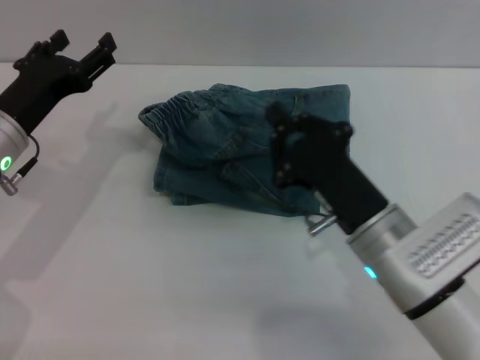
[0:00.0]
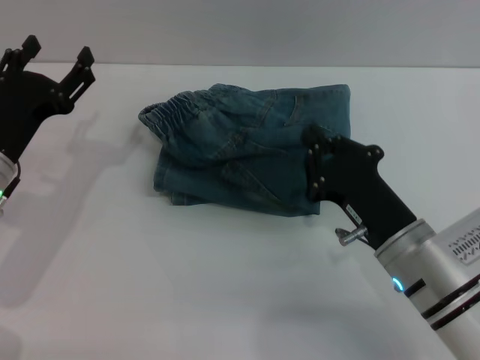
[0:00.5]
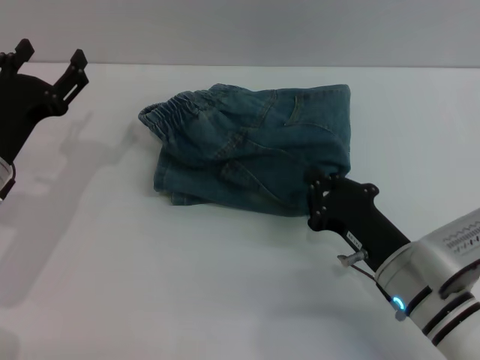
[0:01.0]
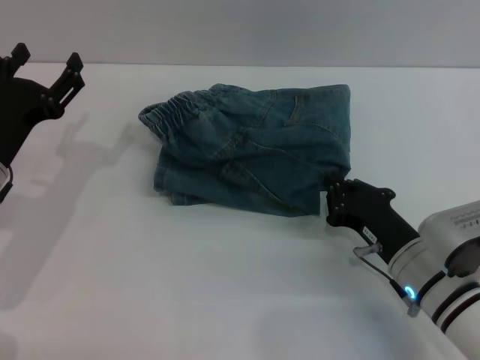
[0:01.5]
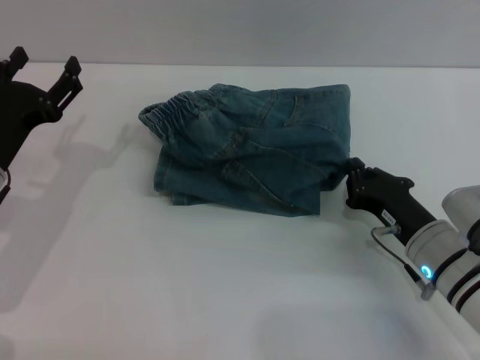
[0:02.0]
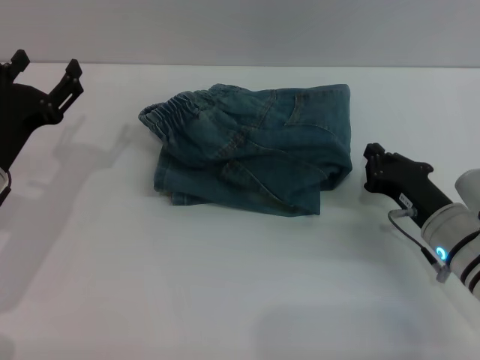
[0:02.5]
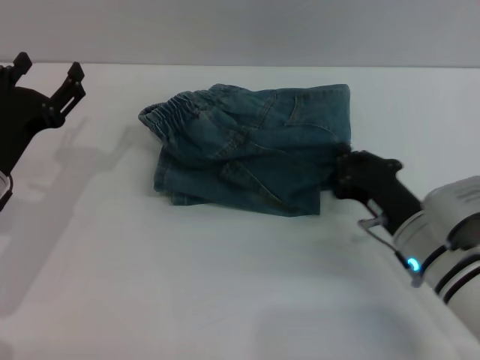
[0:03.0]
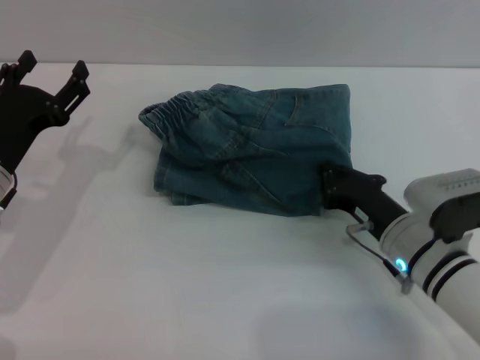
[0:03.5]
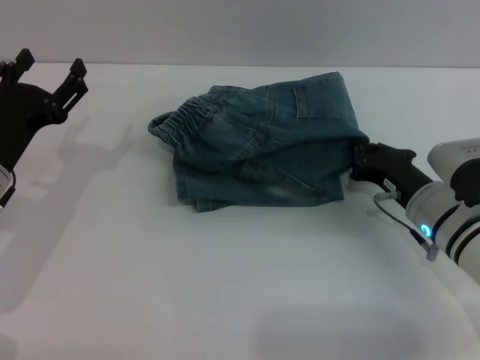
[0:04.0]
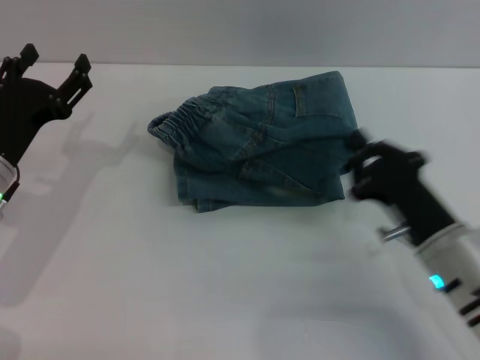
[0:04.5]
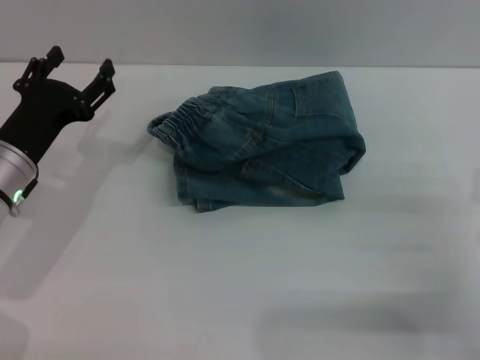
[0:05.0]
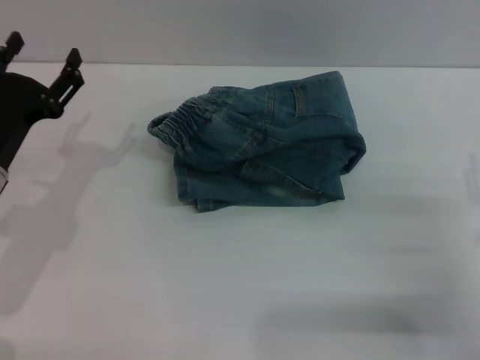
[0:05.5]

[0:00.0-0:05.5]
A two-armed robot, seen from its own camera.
Step, 0:00.0 to 0:04.0: Place the folded trousers onto the center area with the right grippers.
0:00.0 to 0:02.0: The right gripper moves to the right and downward, about 10 cm.
0:02.0 to 0:03.5: The grippers make only small movements.
0:03.5 to 0:05.5: The right gripper heads to the right and backward, covering about 10 cm, and opens up.
